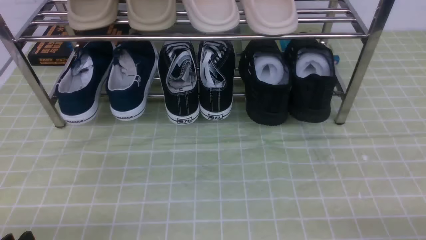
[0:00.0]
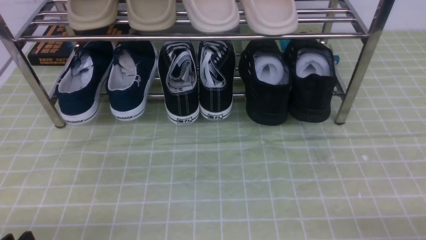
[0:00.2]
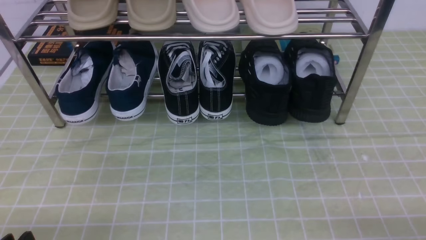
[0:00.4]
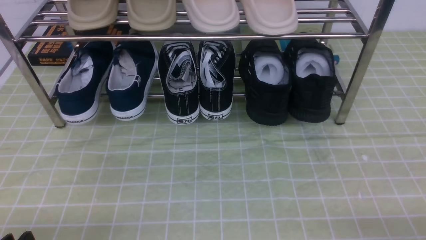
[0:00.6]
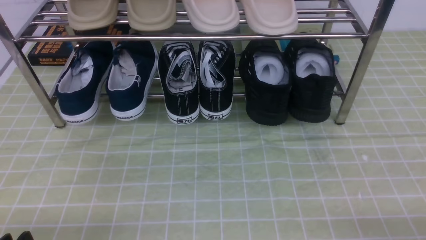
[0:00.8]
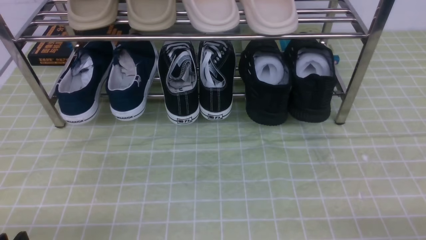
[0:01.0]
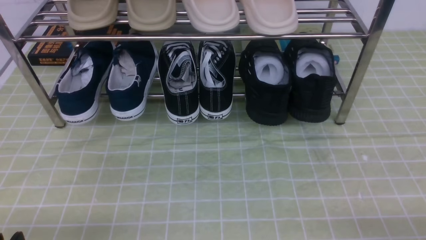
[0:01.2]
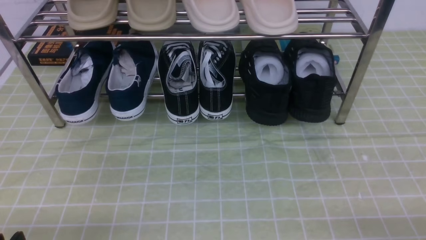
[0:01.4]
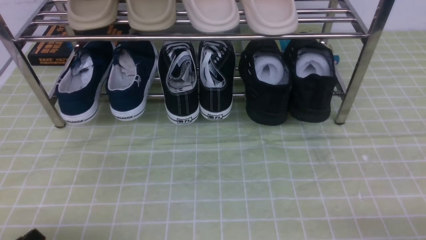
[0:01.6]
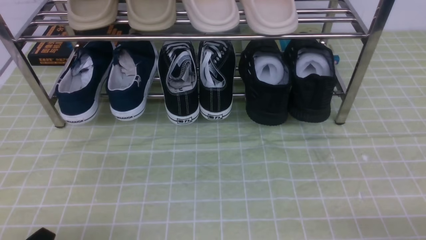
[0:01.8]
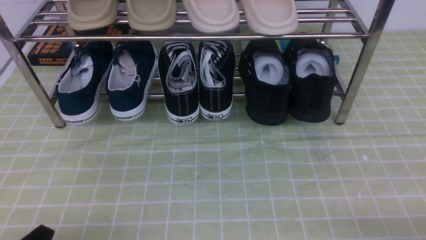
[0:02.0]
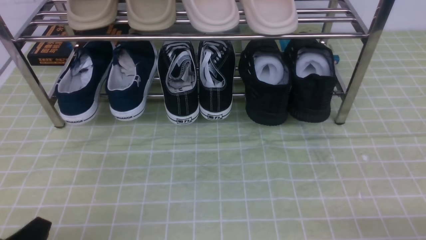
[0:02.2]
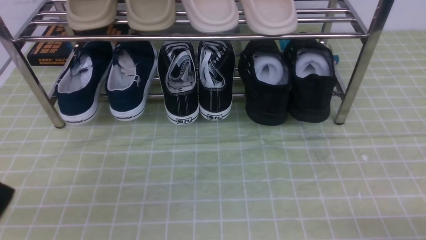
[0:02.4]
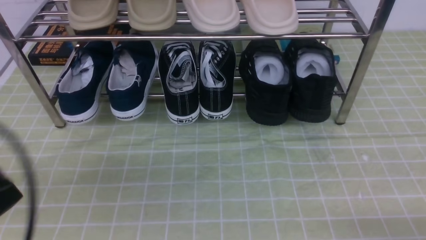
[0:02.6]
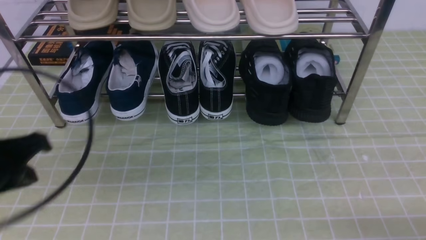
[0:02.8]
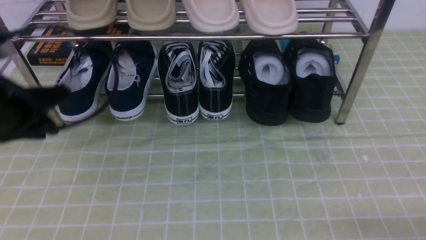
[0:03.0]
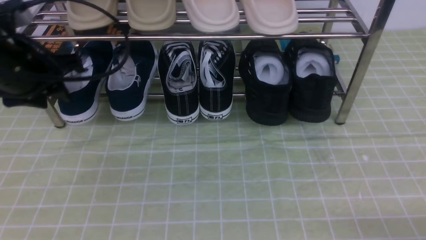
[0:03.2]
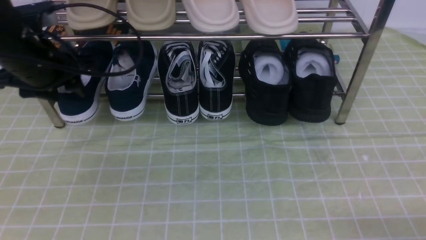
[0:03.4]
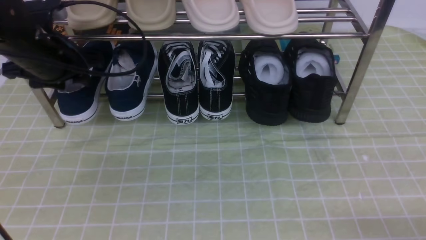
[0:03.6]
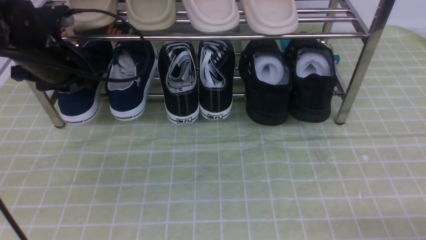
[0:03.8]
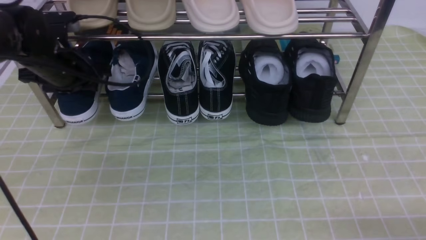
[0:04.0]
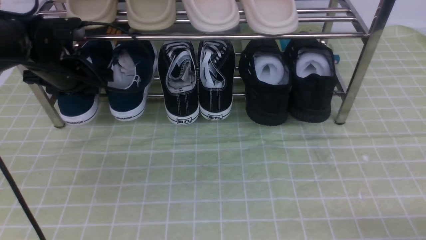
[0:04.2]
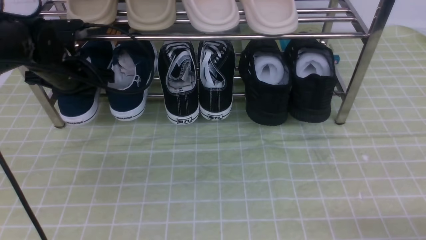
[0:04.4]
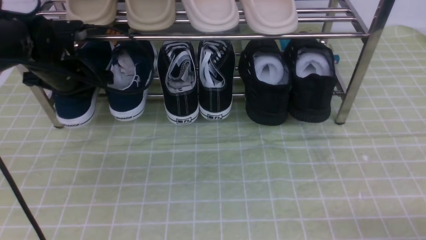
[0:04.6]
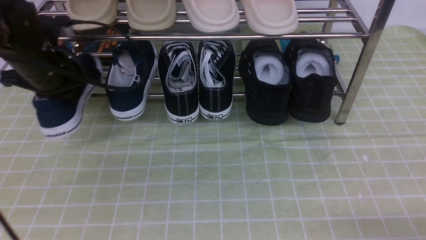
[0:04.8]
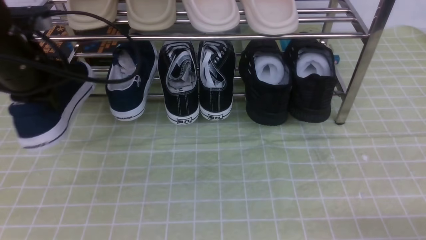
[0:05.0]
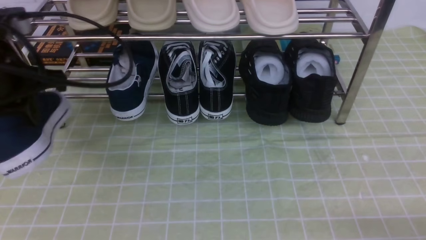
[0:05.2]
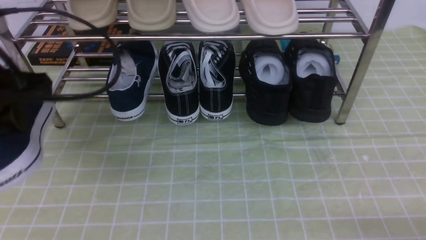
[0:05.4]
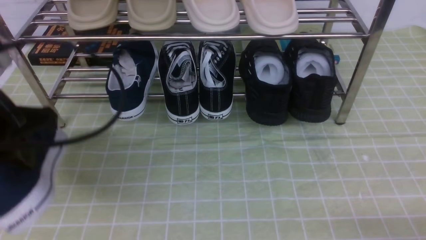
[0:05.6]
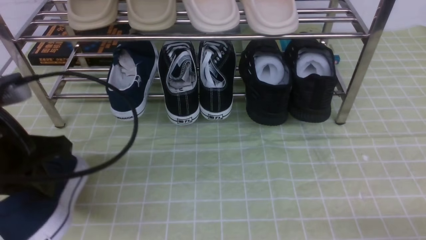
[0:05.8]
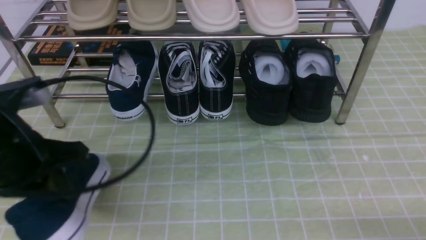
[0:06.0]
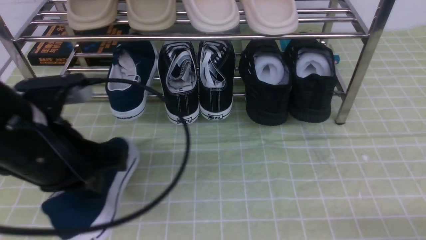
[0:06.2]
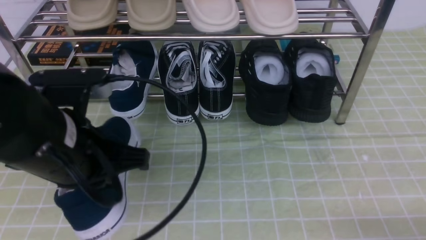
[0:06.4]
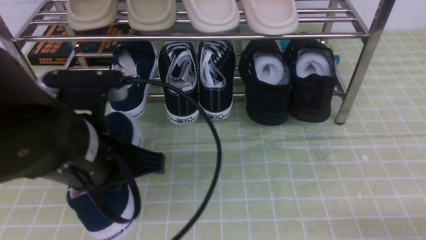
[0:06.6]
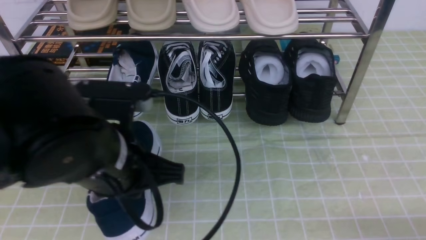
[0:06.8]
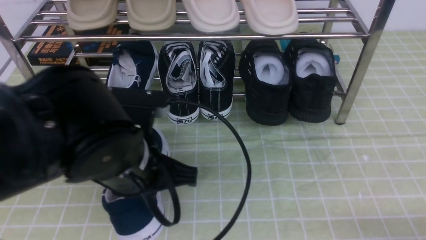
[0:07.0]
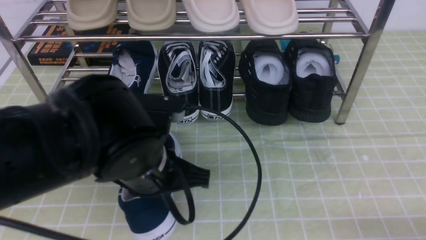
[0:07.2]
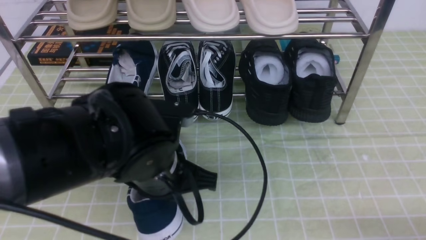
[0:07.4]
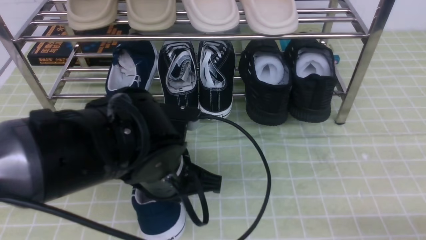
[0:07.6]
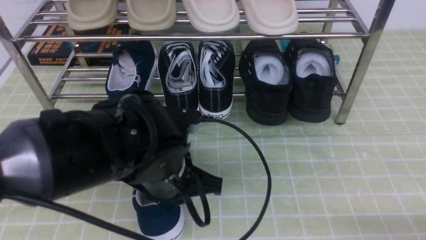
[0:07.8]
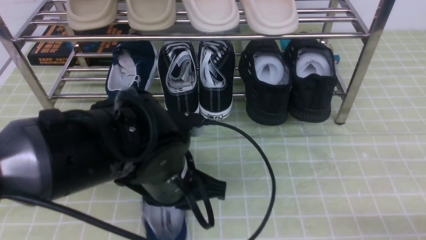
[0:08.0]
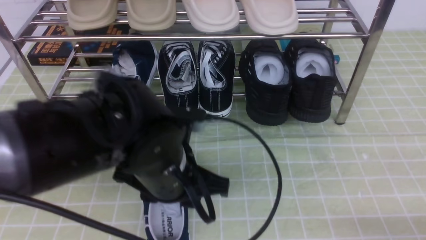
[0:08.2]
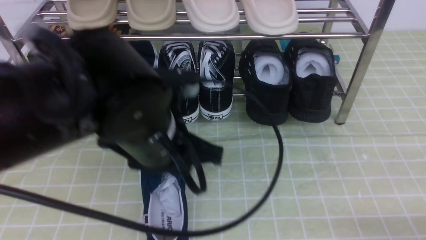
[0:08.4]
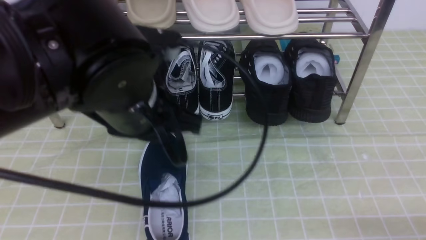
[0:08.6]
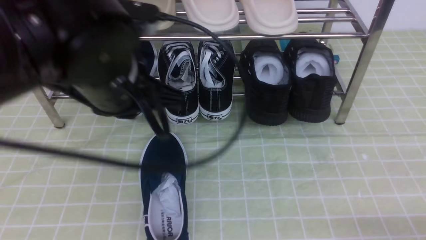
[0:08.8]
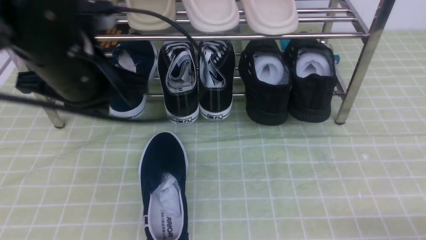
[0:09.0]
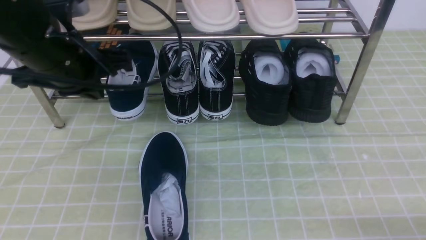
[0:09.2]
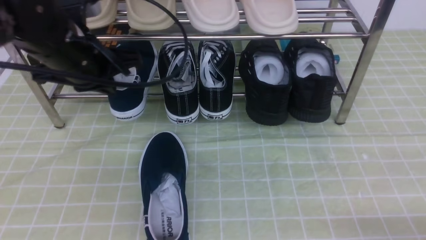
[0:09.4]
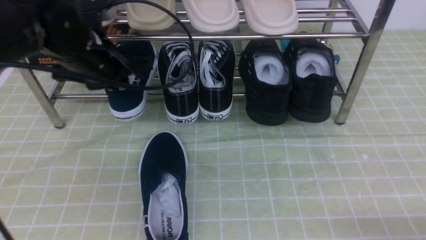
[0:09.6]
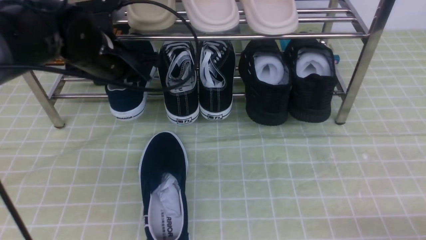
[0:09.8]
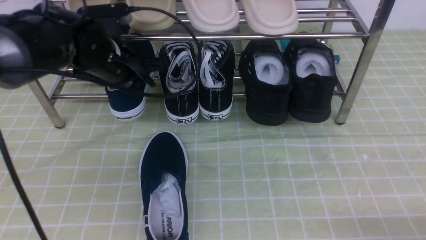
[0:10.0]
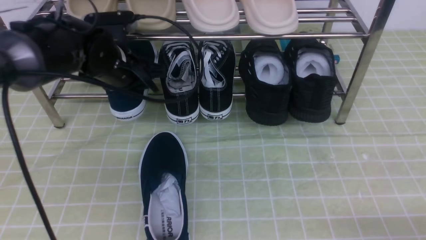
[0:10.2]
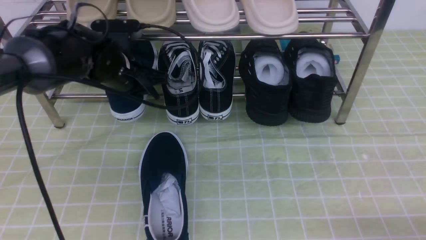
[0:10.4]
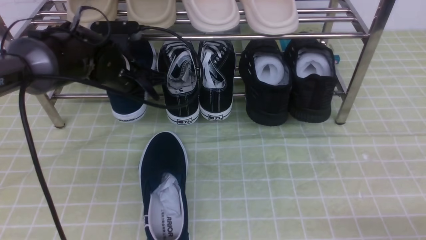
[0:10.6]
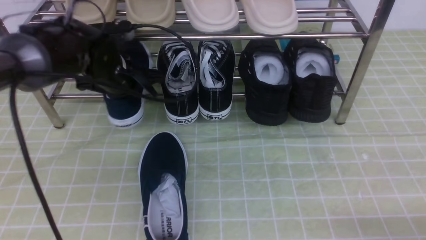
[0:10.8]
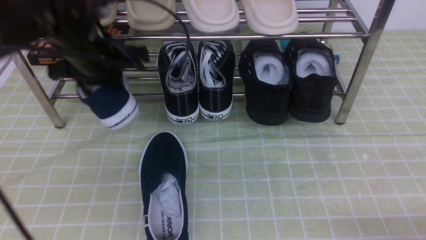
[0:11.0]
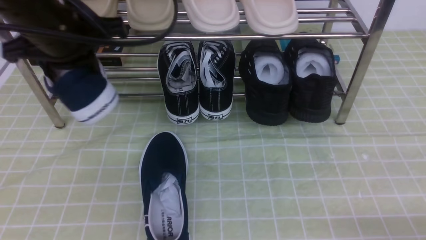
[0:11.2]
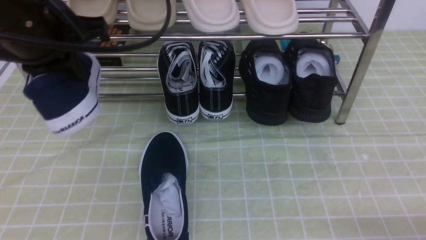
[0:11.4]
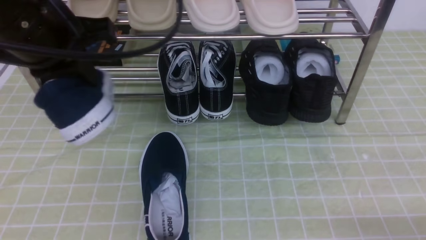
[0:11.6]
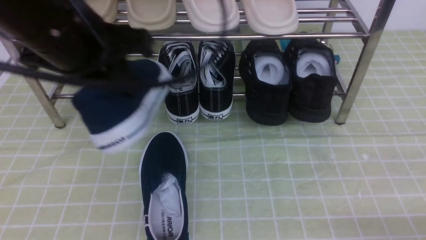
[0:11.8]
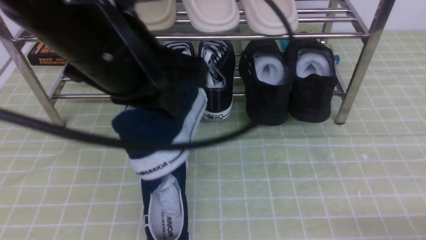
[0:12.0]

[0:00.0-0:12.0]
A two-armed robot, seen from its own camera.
Step, 0:00.0 to 0:04.2: use the left arm to clamp a shoe on the left side of the shoe rack.
Step, 0:04.4 to 0:08.2: Use your left arm to remove the clamped shoe from the shoe rack and put it down.
Step, 0:08.4 to 0:10.4: use the left arm to clamp a shoe on the left side of the shoe rack.
0:01.6 to 0:03.0: The left gripper is displaced forward and upward by about 25 cm, and closes and opens again.
0:03.0 to 0:04.4: The left gripper moves forward and downward, roughly 15 cm, and opens and closes again.
0:04.4 to 0:06.0: The left gripper travels backward by some 20 cm, and closes up.
0:06.0 to 0:07.6: The left gripper shifts about 15 cm to the right and downward.
0:07.6 to 0:09.0: The left gripper shifts about 15 cm upward, to the left and forward, and opens, then closes once more.
0:09.0 to 0:10.4: The left gripper moves forward and downward, approximately 15 cm, and opens.
0:10.4 to 0:12.0: The left gripper travels backward and upward by approximately 25 cm, and closes its fingers.

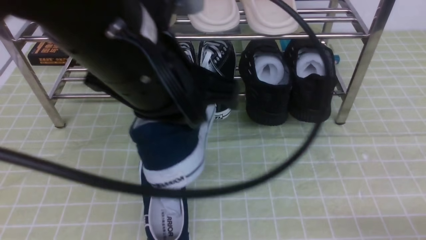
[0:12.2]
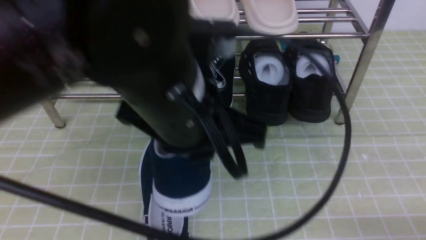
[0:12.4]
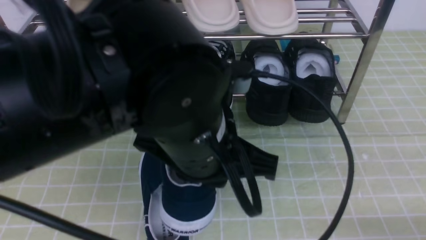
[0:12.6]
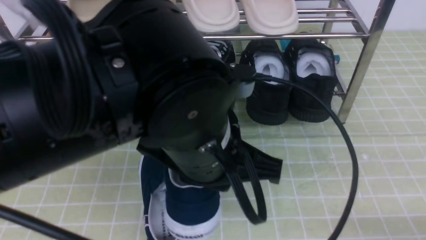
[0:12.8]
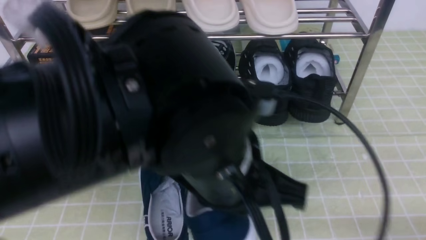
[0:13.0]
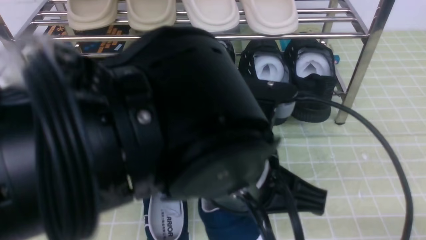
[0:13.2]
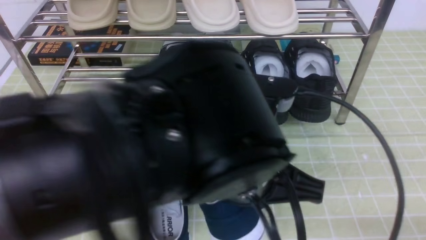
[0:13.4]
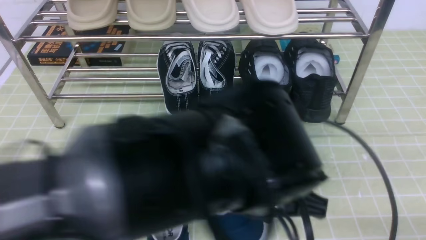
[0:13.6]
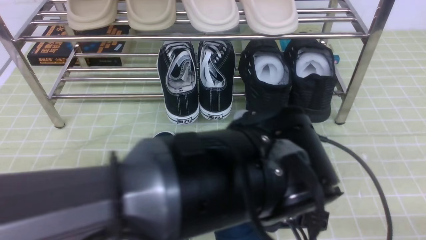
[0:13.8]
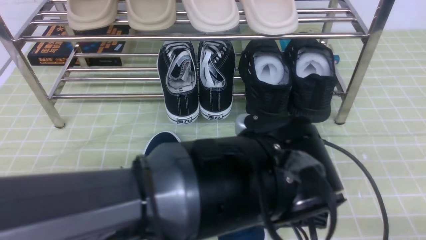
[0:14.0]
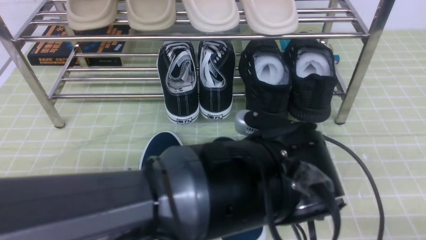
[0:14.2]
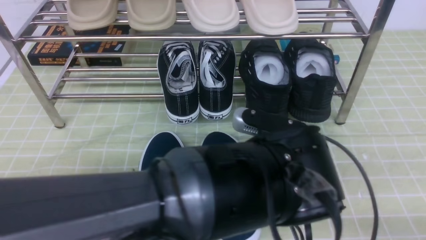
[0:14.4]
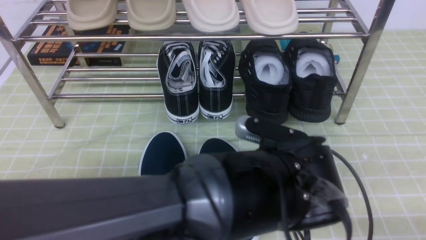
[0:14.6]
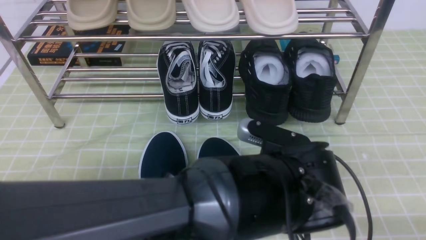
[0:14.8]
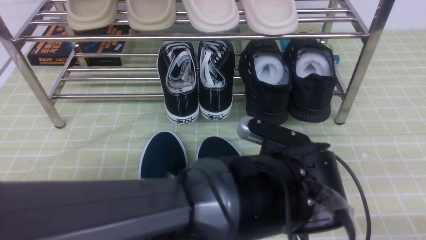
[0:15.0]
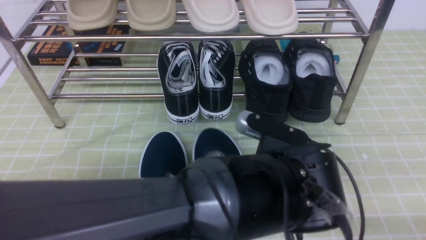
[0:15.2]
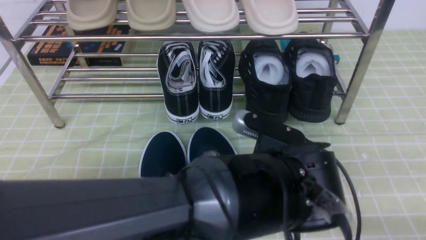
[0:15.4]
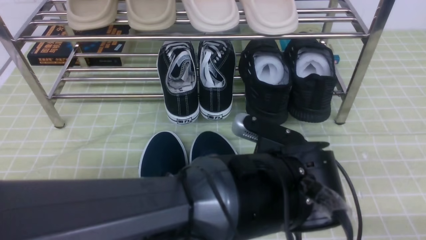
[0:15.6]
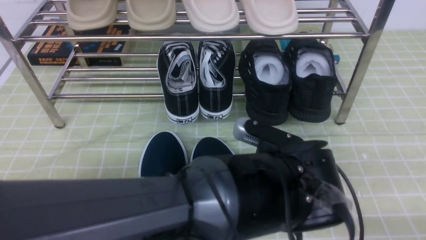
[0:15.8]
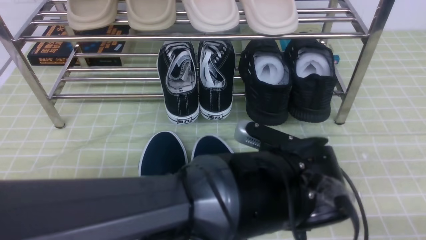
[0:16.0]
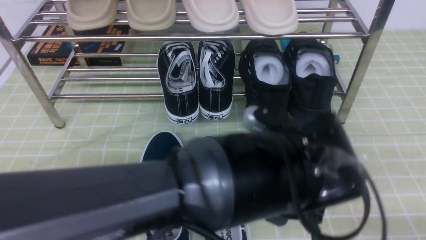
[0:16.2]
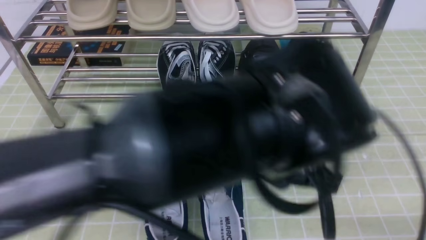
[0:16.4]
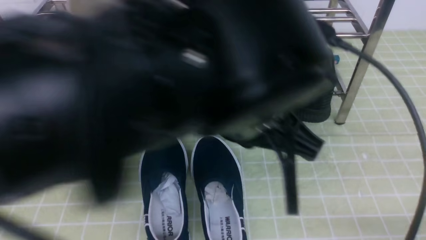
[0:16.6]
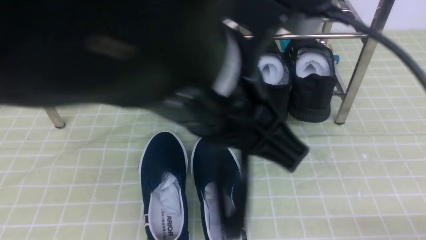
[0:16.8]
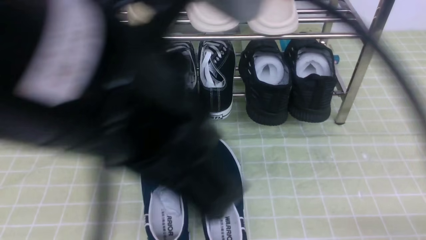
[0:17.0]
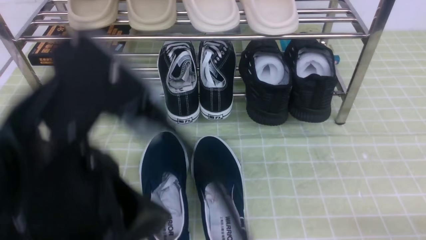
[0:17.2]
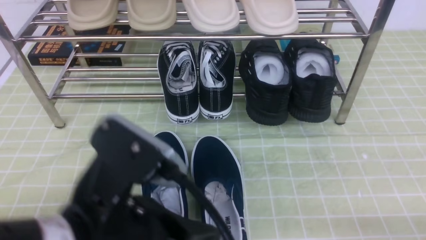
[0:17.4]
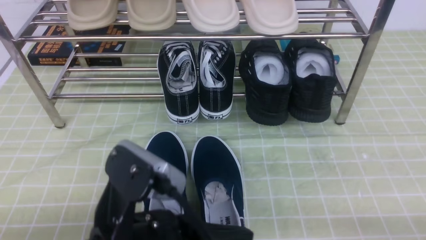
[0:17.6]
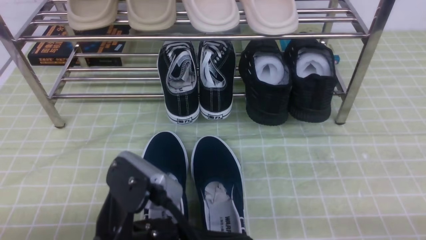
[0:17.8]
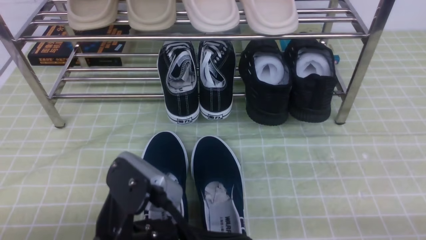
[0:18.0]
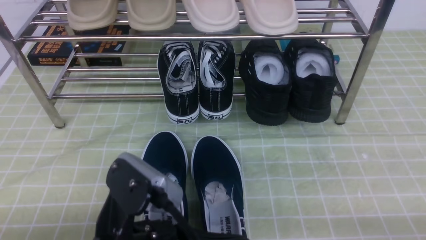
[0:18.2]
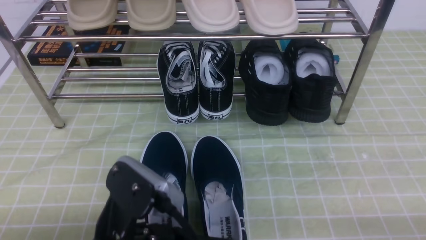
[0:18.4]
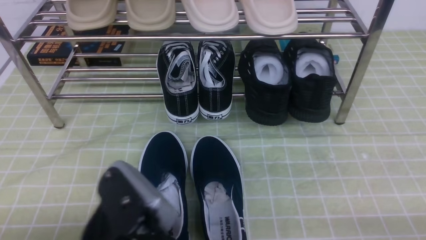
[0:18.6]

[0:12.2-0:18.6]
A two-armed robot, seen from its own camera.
Step, 0:12.2 to 0:15.8: Use your left arm to remove the clamped shoe from the shoe rack and put it down.
0:12.2 to 0:13.8: The left gripper travels downward and to the right by roughly 15 cm.
0:13.8 to 0:15.4: There are only small adjustments of the grippers.
0:15.4 to 0:17.0: The left gripper heads upward and to the left, covering about 25 cm, and opens and closes again.
0:17.0 to 0:18.6: The left gripper heads downward, covering about 15 cm.
